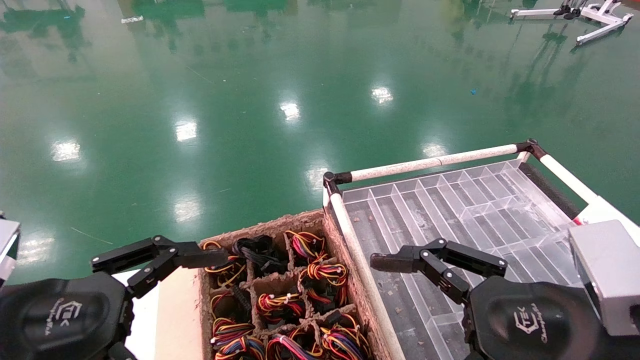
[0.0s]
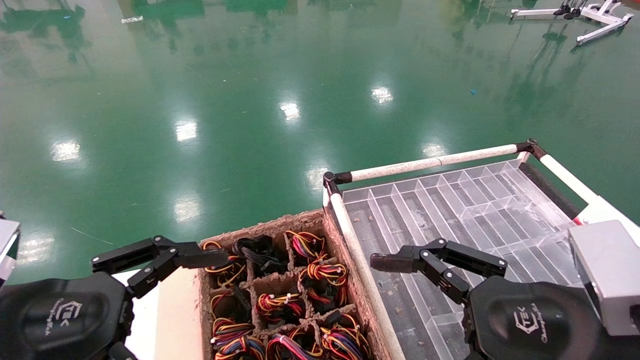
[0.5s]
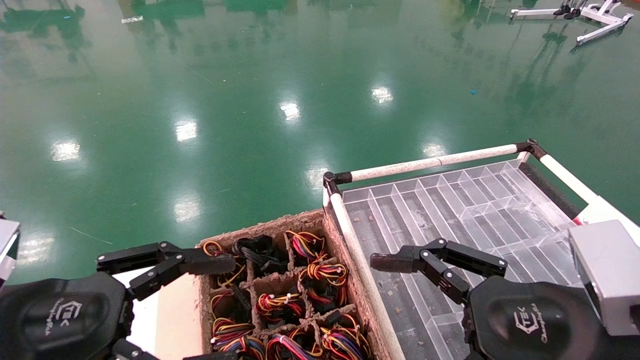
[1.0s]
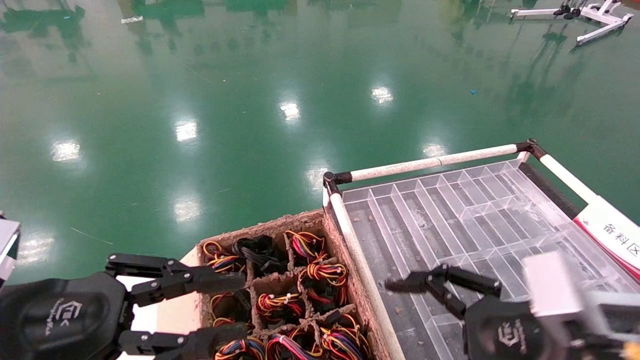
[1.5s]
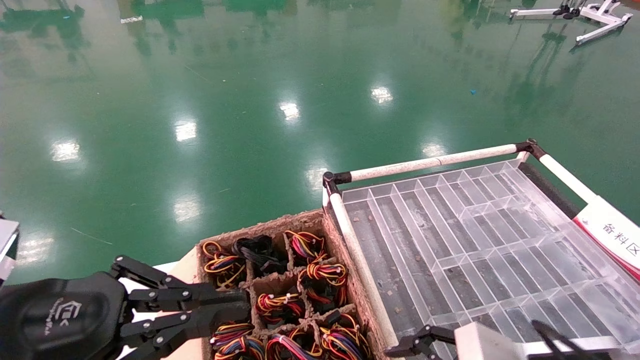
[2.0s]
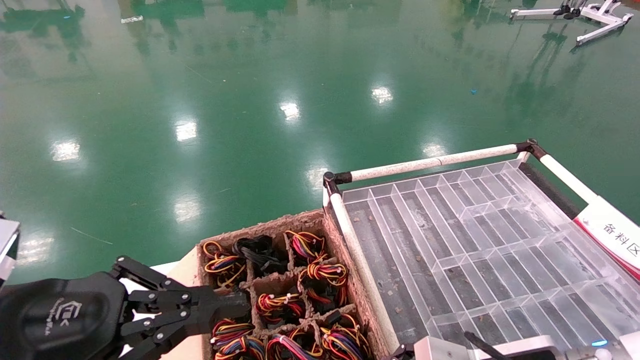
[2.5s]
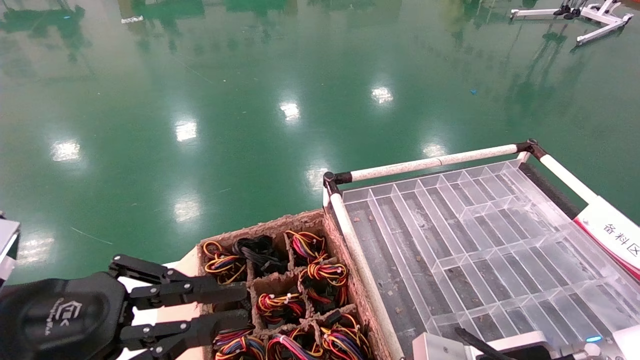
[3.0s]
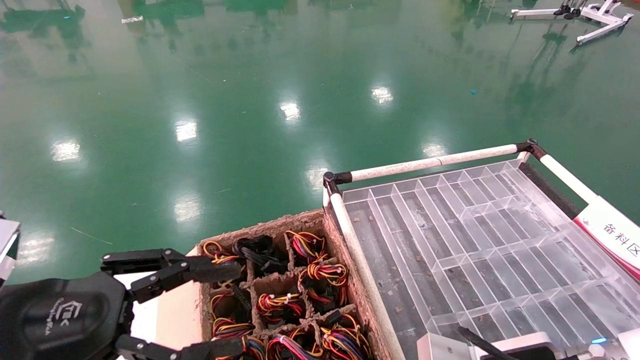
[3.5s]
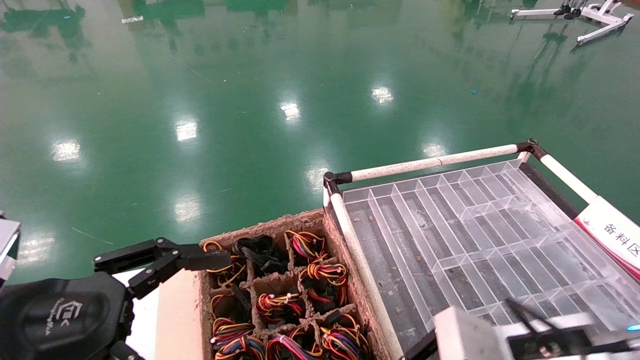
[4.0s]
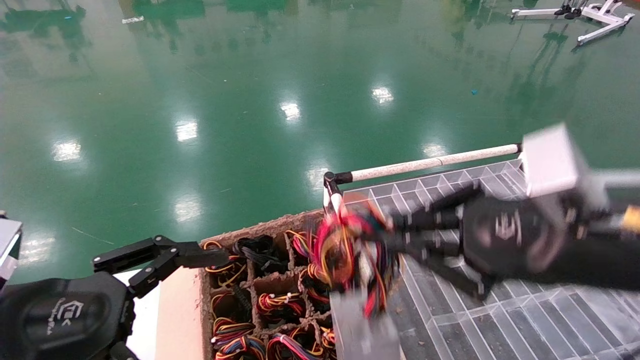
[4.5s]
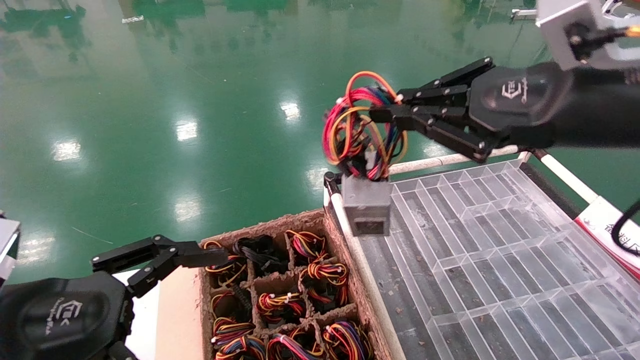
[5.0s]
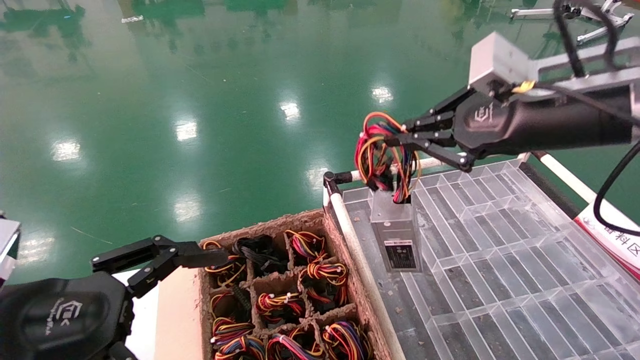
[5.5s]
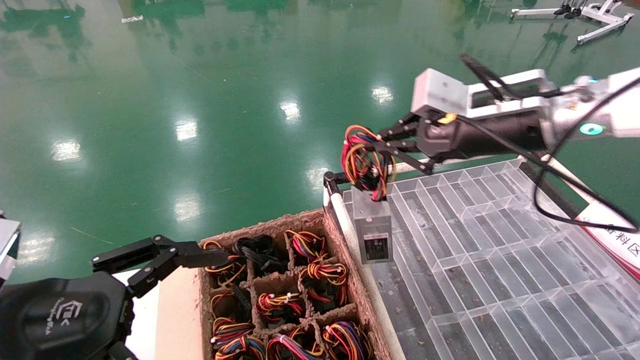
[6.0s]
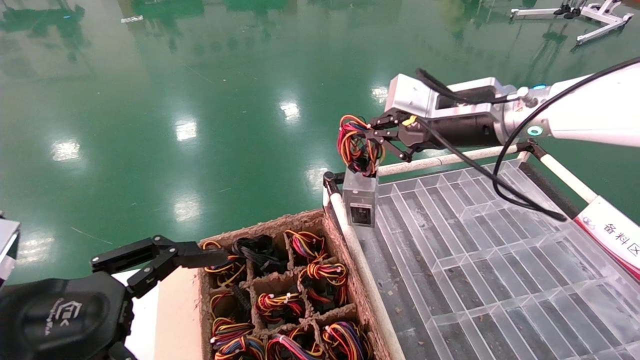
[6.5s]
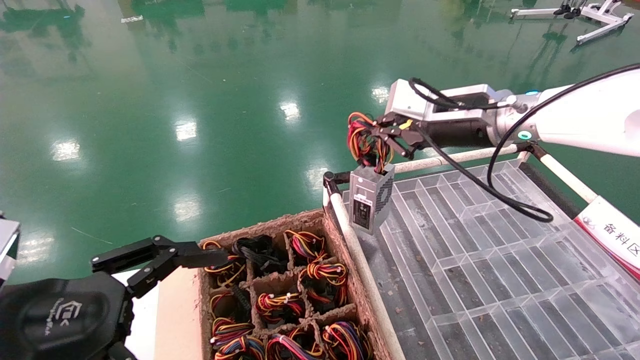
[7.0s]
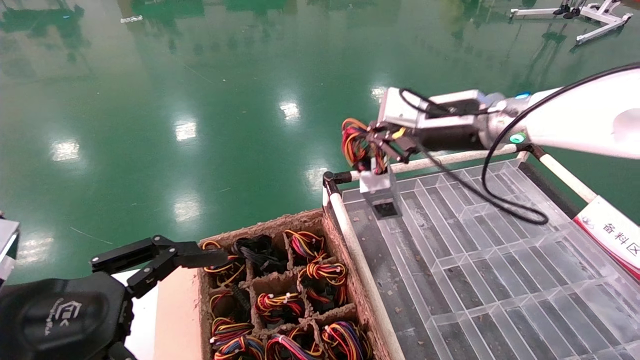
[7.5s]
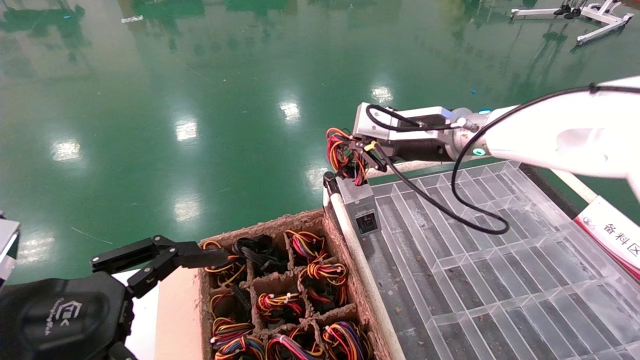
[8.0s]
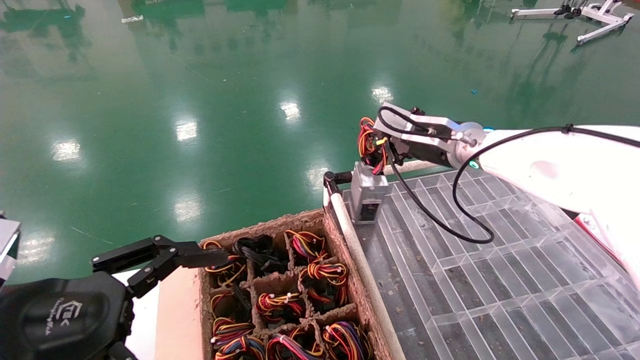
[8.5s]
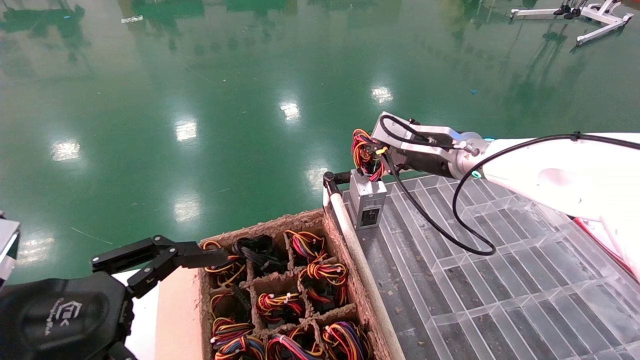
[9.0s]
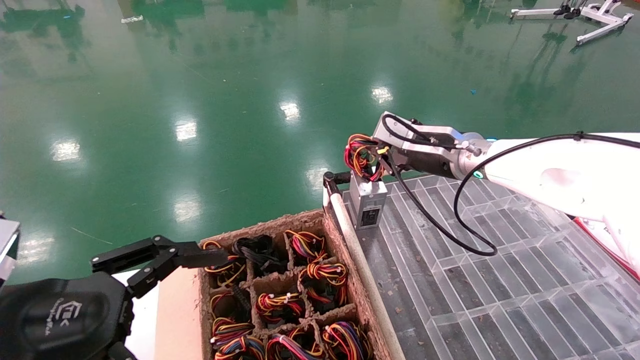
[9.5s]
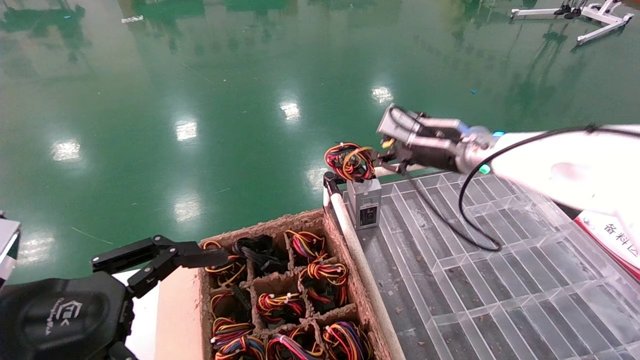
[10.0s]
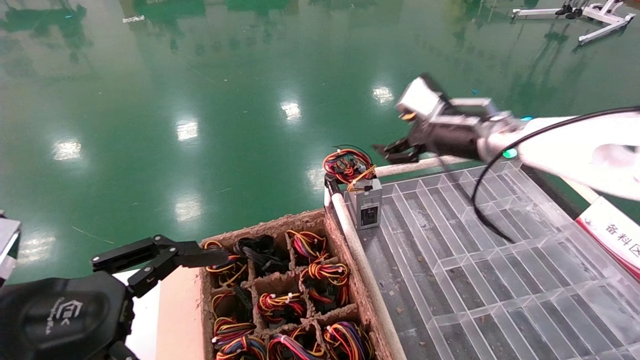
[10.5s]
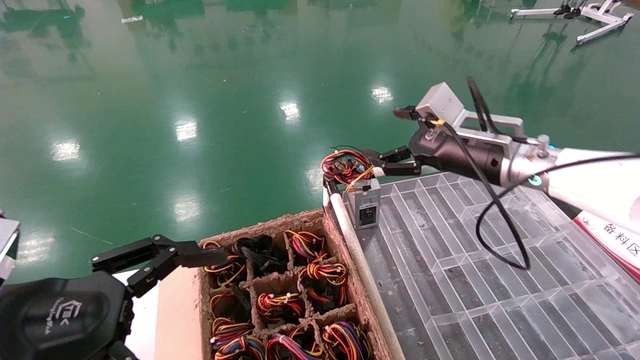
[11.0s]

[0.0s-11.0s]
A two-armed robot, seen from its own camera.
Step, 1.0s to 3.5s: Grab and lift the power supply from the large box.
Step, 4.0s to 9.5s: Place the power supply on the operating table.
0.0s to 2.0s: The left gripper closes up. Meanwhile the right gripper goes about 10 cm downward.
2.0s to 3.5s: The right gripper closes.
3.5s to 5.5s: The right gripper goes approximately 25 cm upward; the left gripper opens.
5.5s to 7.5s: The right gripper heads forward and to the left, covering about 15 cm.
7.5s to 9.0s: The right gripper travels downward and forward by about 10 cm.
9.0s to 11.0s: The right gripper goes some 5 cm backward, and opens.

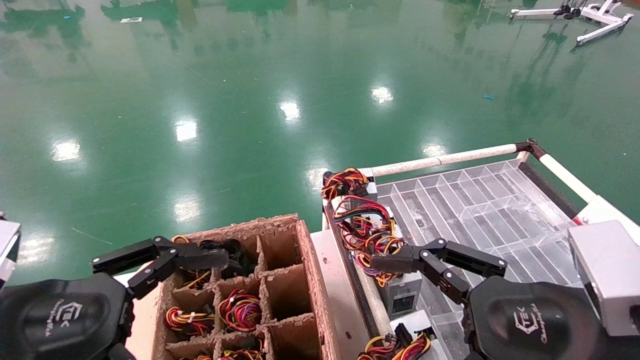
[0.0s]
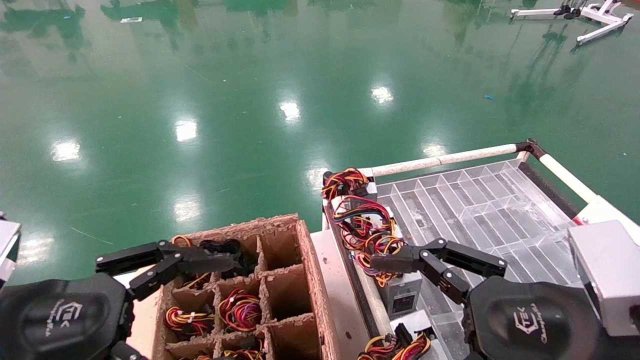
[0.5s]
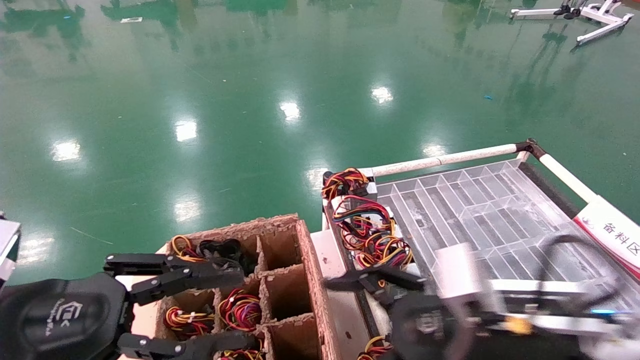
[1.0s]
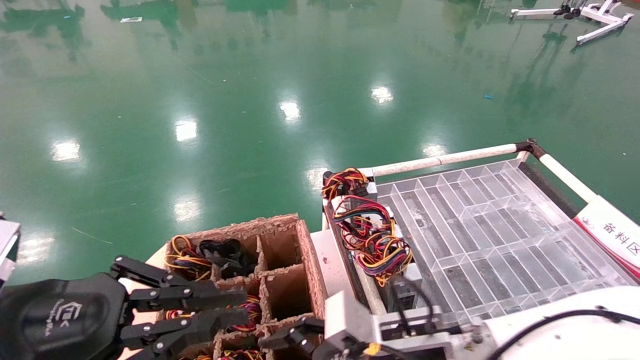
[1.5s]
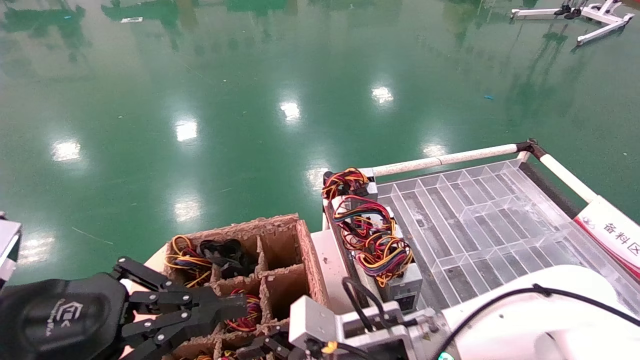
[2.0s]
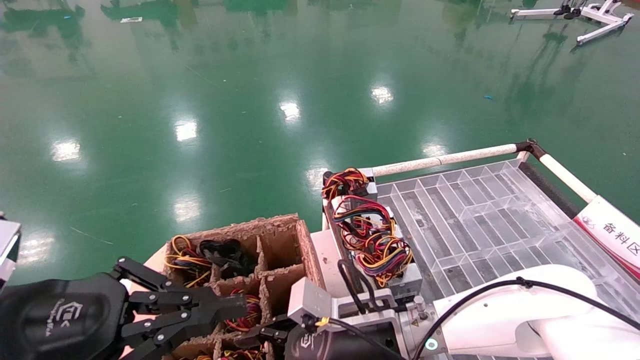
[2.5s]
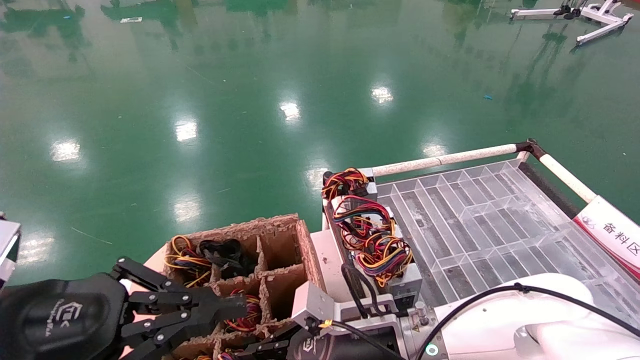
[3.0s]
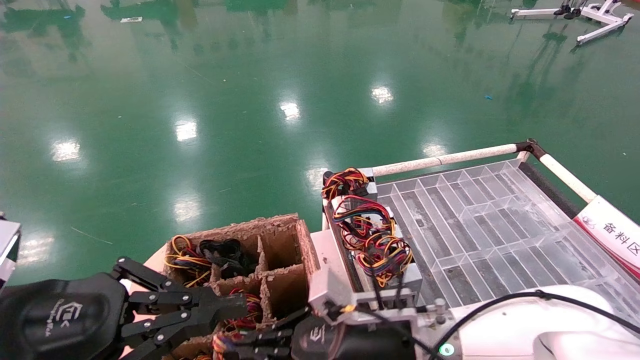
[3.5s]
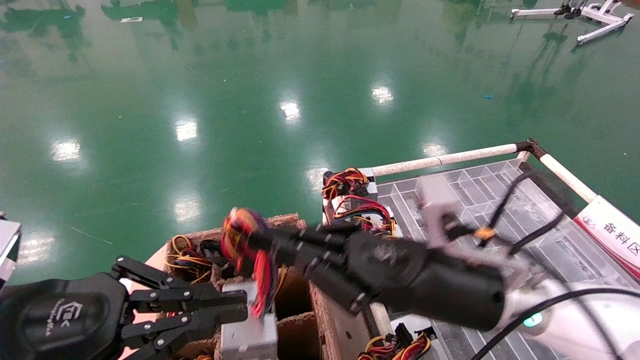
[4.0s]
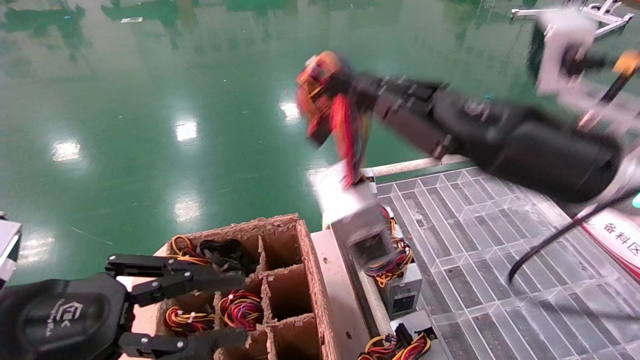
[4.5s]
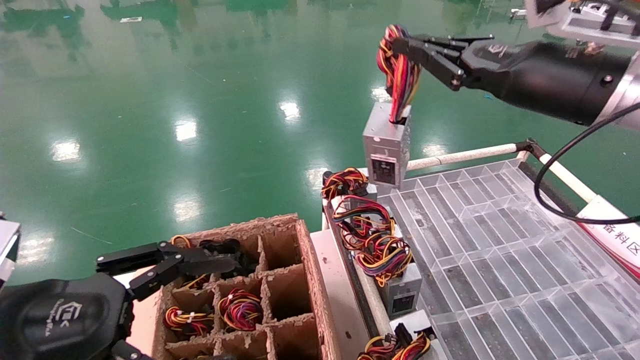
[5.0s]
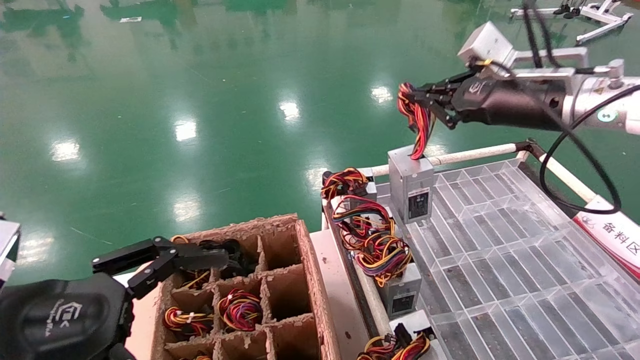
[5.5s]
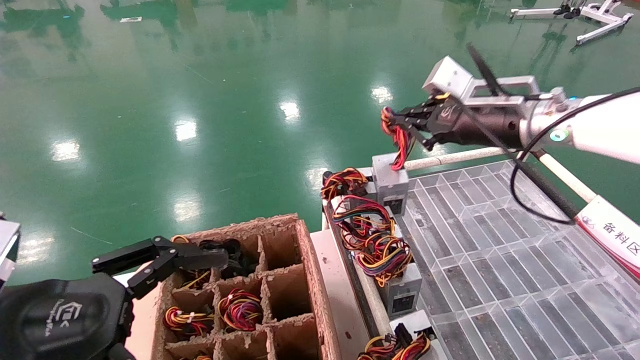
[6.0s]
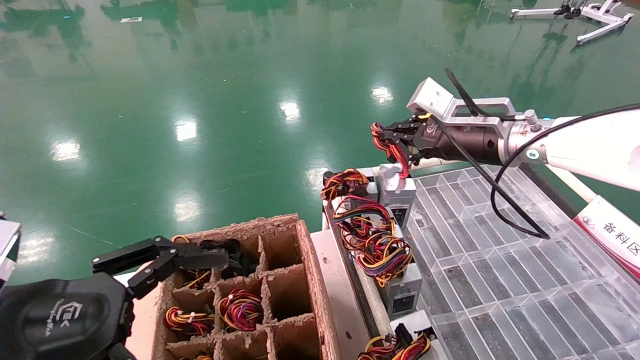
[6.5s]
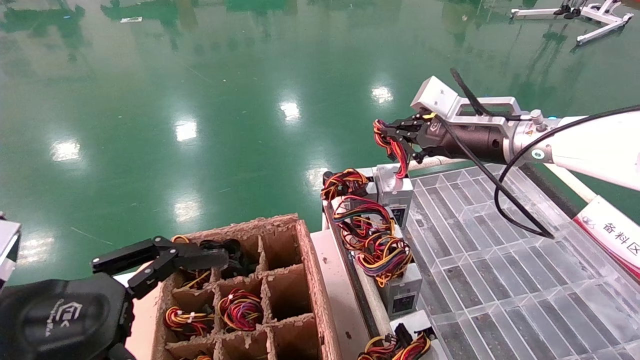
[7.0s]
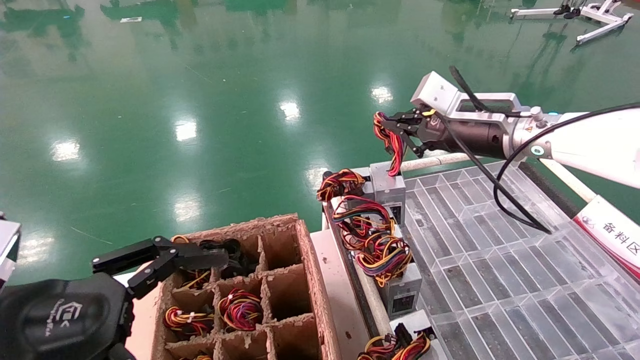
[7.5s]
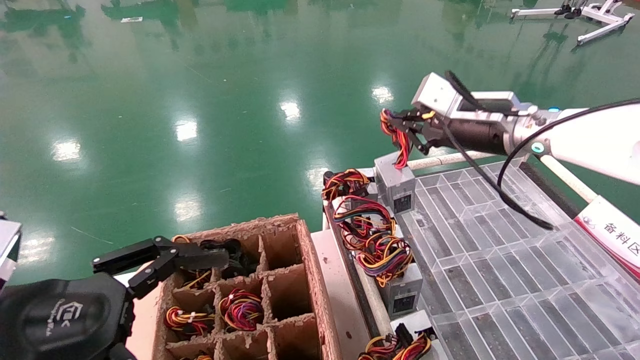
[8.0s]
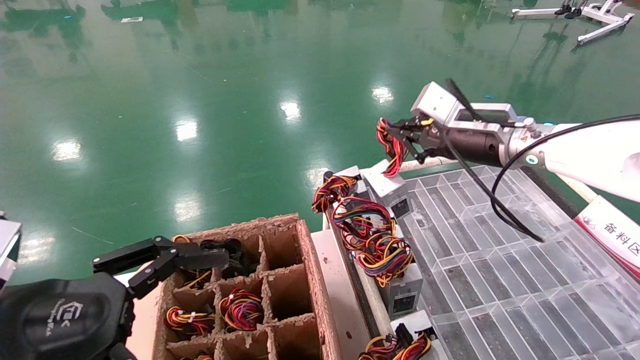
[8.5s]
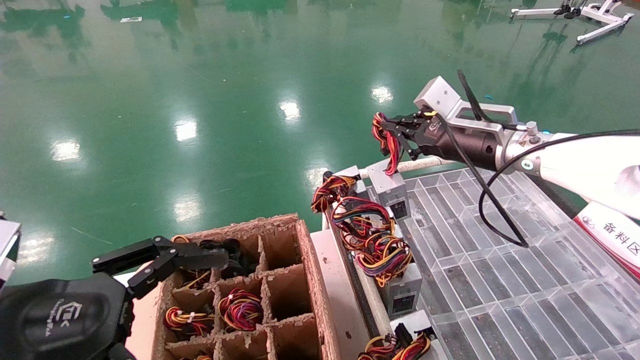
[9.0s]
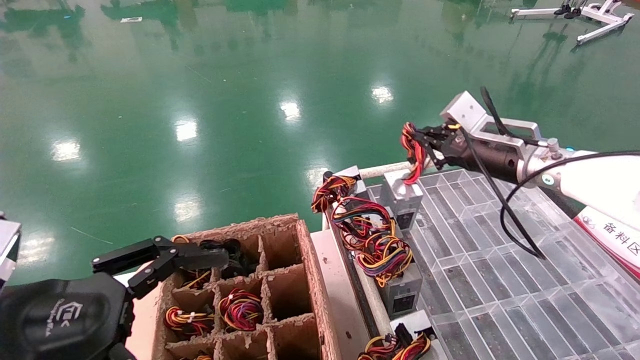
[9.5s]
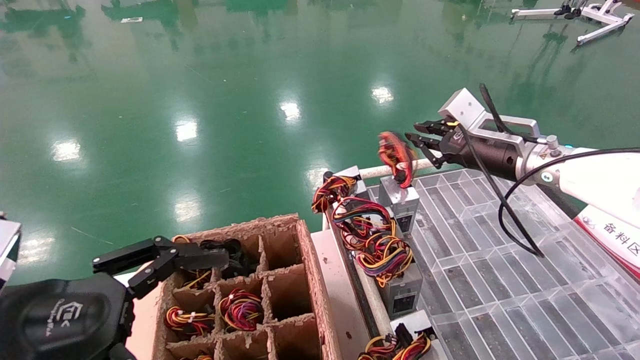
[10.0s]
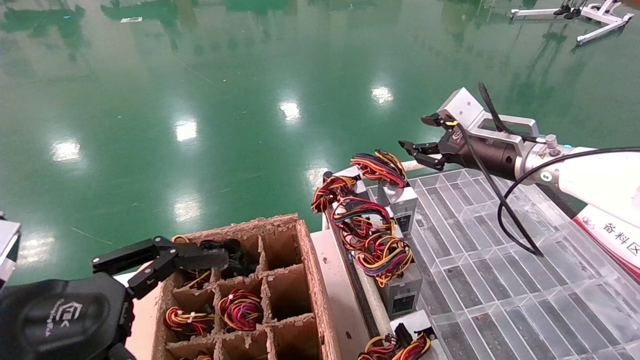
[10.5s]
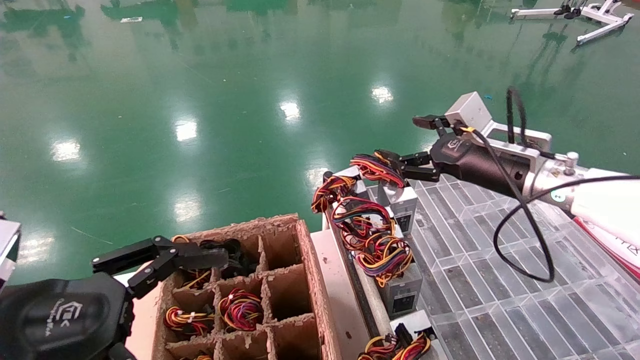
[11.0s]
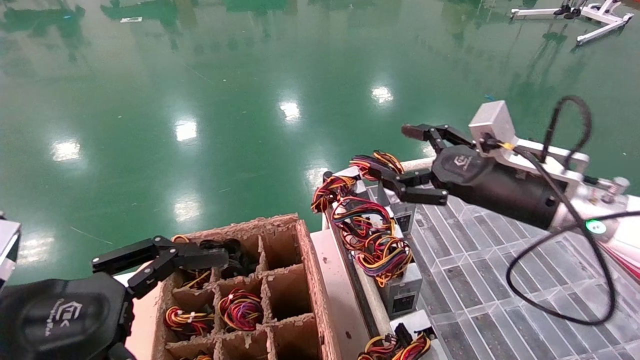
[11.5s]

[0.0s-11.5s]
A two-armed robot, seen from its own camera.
Step, 1.0s to 3.0s: Grab and lift the power supply from the large box.
Step, 3.5s to 9.5s: Place the power supply on the operating table.
0.0s to 2.0s: The right gripper shifts some 25 cm to the left, forward and downward. Meanwhile the left gripper closes its fingers.
2.0s to 4.0s: The right gripper goes some 10 cm upward and to the right, and closes.
4.0s to 6.0s: The right gripper travels upward, forward and to the right by about 20 cm, while the left gripper opens its fingers.
6.0s to 7.5s: The grippers stay close to where they were, moving slightly.
7.5s to 9.5s: The right gripper moves about 5 cm.
9.5s to 11.5s: The right gripper moves backward, approximately 10 cm, and opens its fingers.
